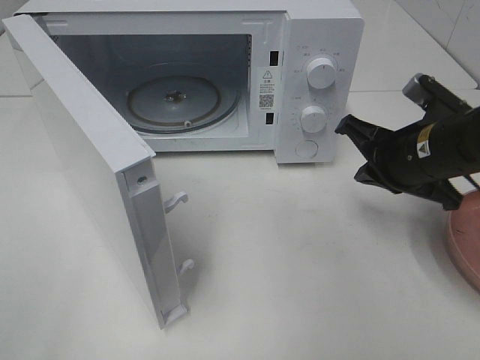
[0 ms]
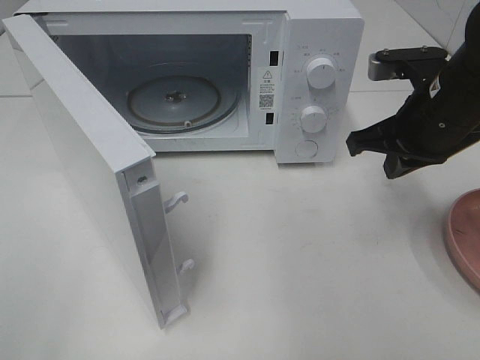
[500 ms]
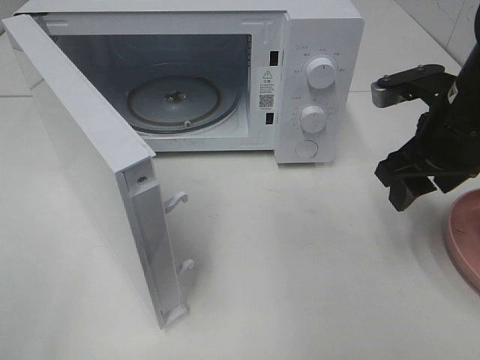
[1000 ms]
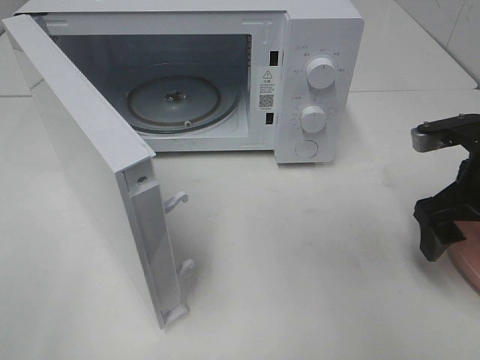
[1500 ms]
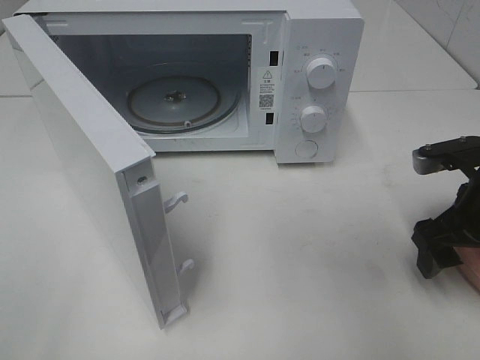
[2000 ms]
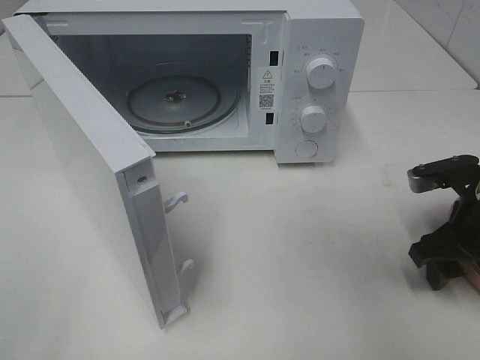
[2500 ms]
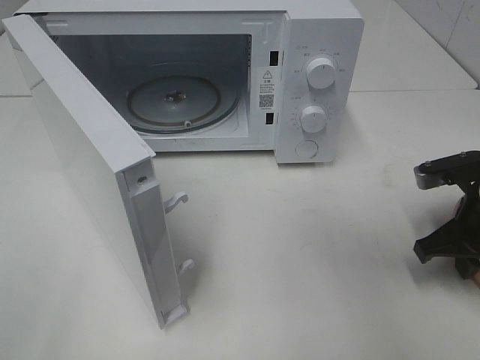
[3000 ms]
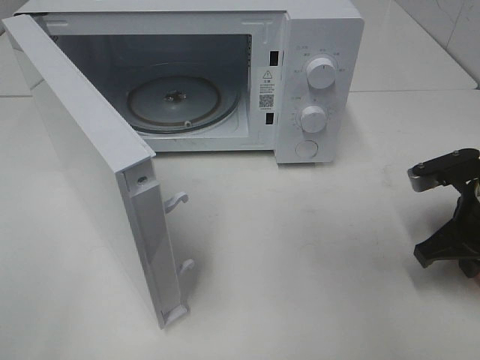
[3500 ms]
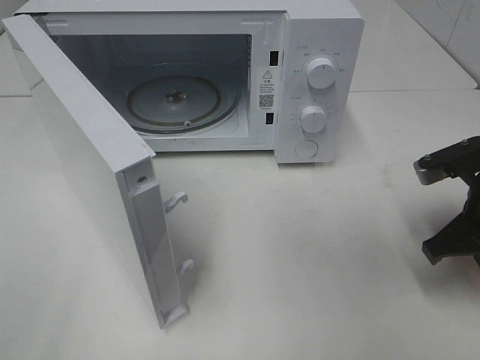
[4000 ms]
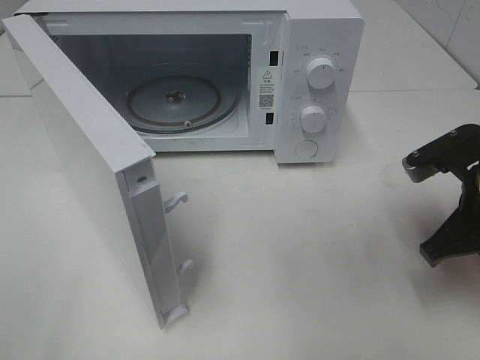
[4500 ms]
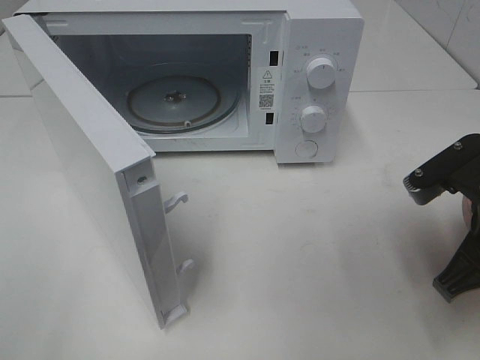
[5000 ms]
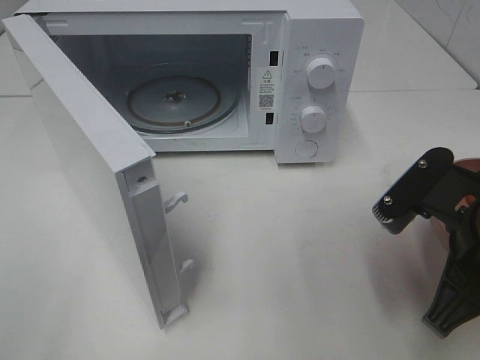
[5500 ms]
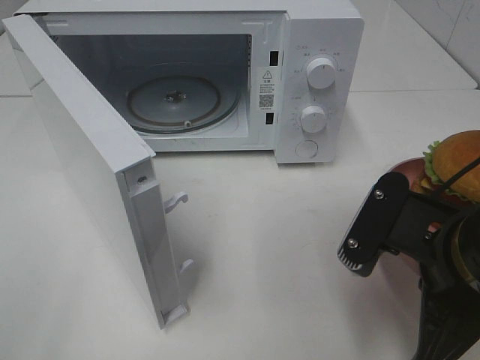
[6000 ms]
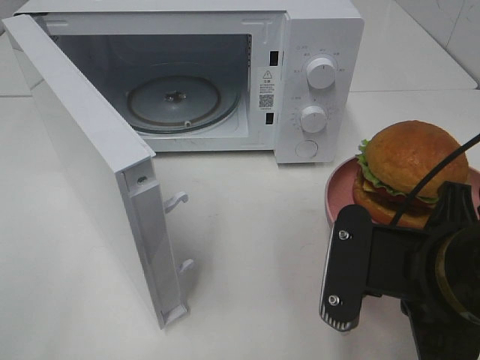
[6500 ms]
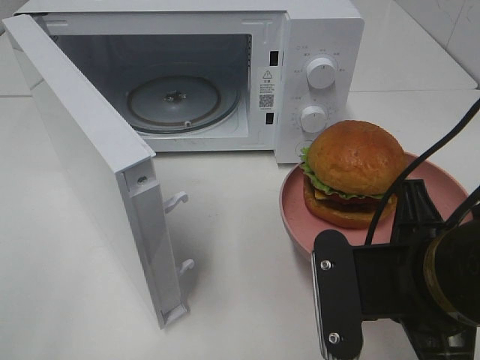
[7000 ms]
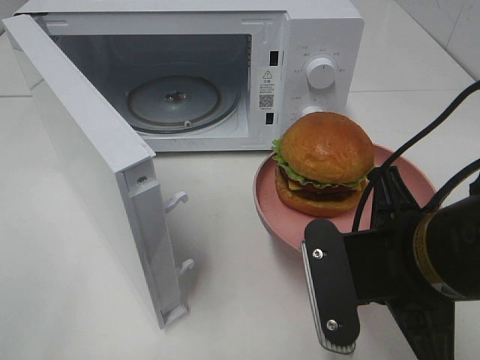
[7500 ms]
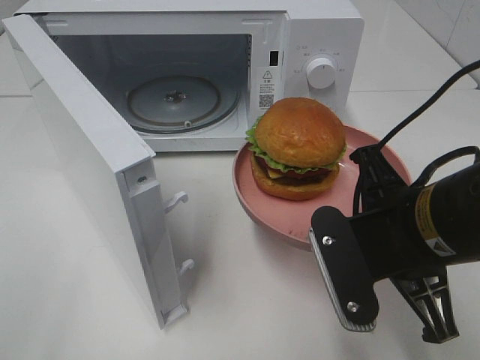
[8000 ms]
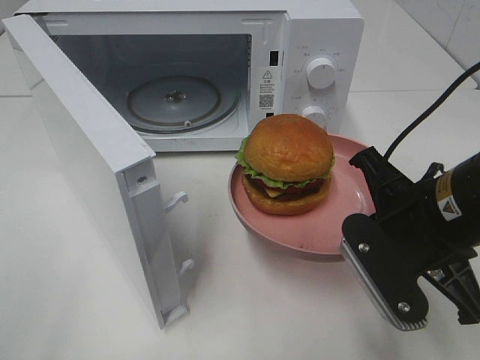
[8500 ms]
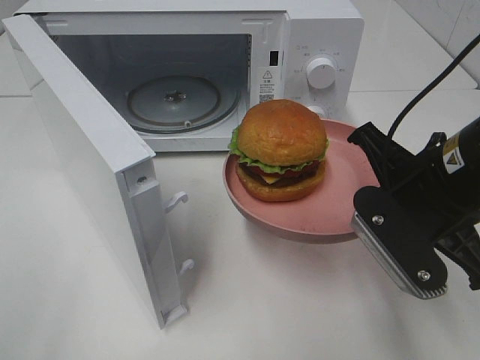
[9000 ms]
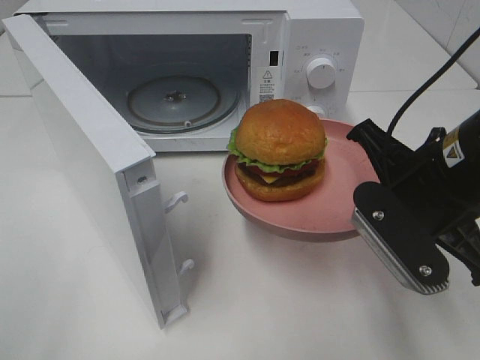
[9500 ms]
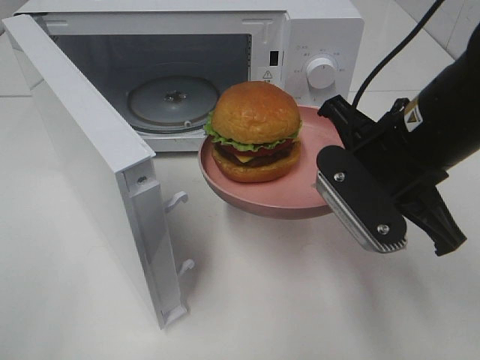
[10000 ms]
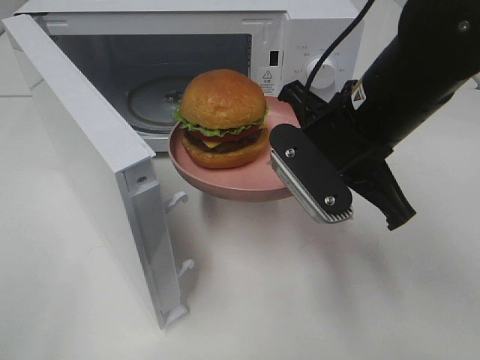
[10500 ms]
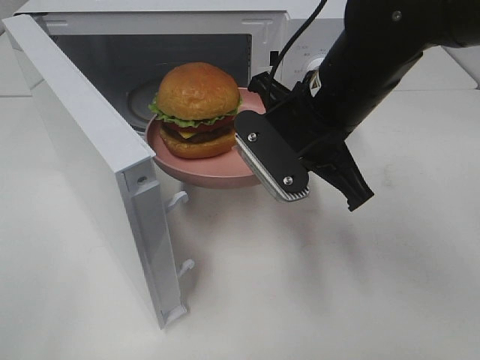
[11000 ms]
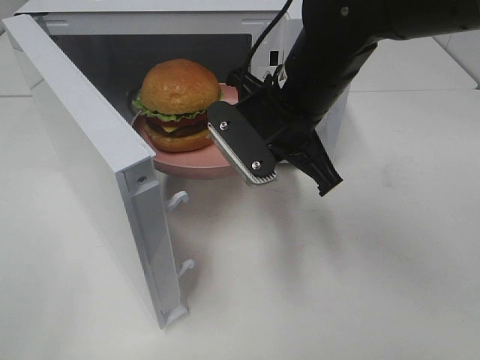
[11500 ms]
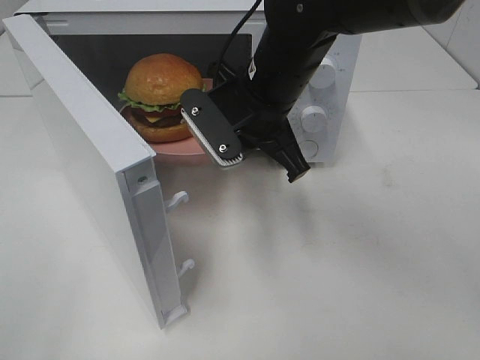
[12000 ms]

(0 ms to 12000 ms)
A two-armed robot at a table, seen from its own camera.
Task of the whole recording: Heat the burger.
Step, 0 ms - 3500 ms: Right hand: grab the plate with the hamburger.
0 ms - 2000 ms: The right gripper is displaced to the right by some 5 cm, and opens.
2000 ms - 4000 ms: The right gripper closes.
4000 ms - 6000 ms: The right gripper moves backward and to the left, some 15 cm.
8000 ms - 10000 ms: The right gripper travels forward by approximately 5 cm.
10000 ms - 12000 ms: The right gripper is displaced to the left and forward by some 15 cm.

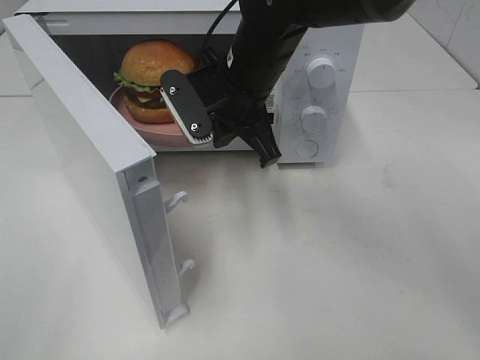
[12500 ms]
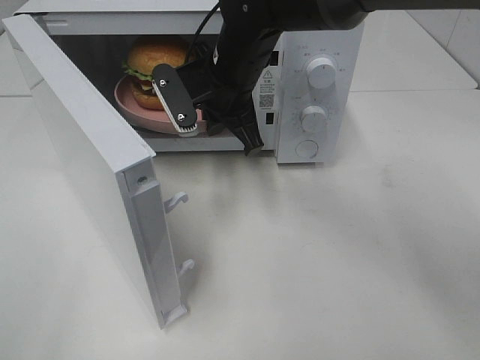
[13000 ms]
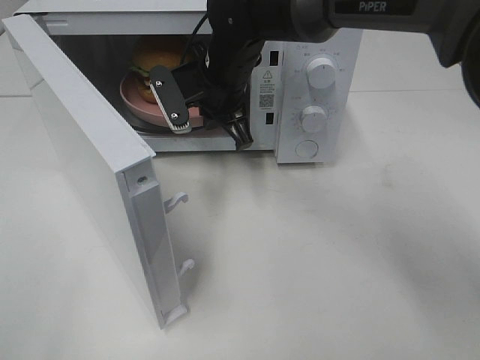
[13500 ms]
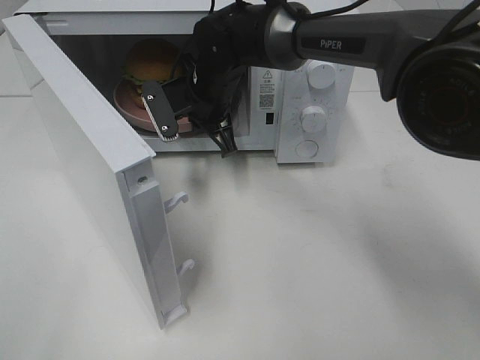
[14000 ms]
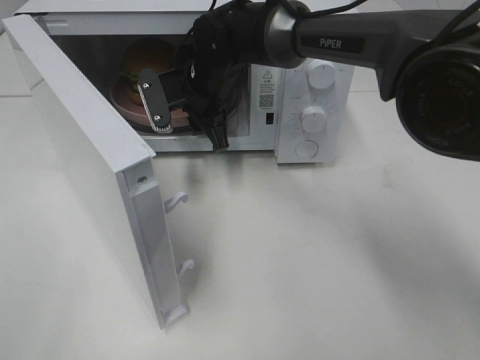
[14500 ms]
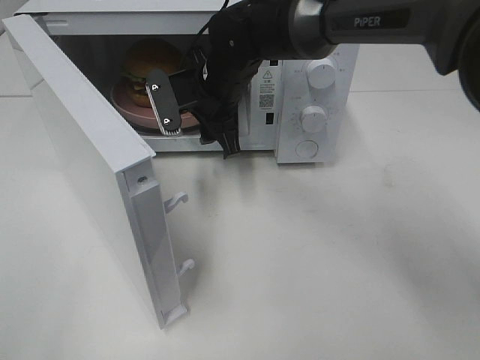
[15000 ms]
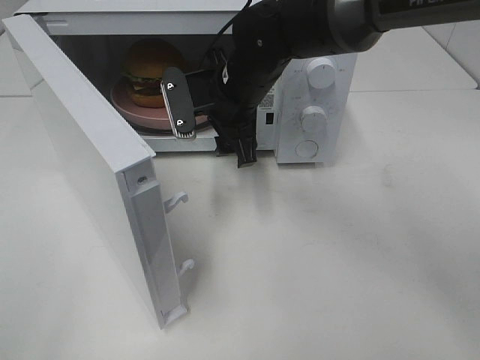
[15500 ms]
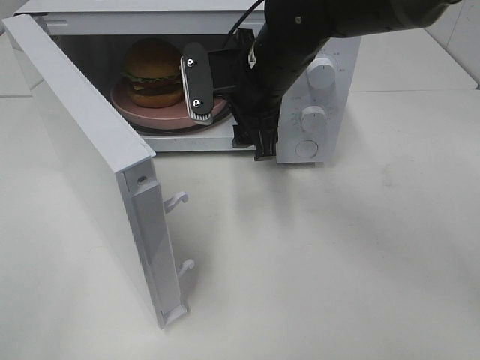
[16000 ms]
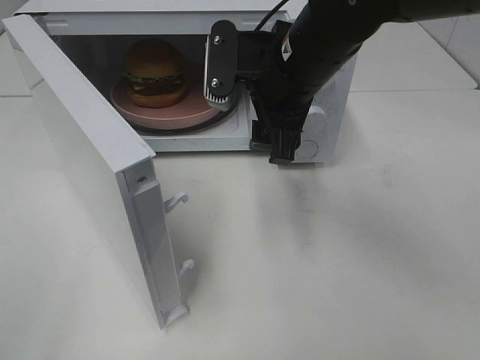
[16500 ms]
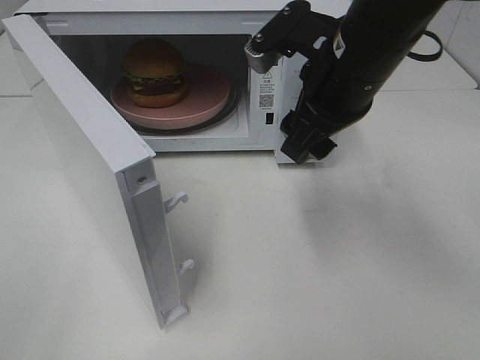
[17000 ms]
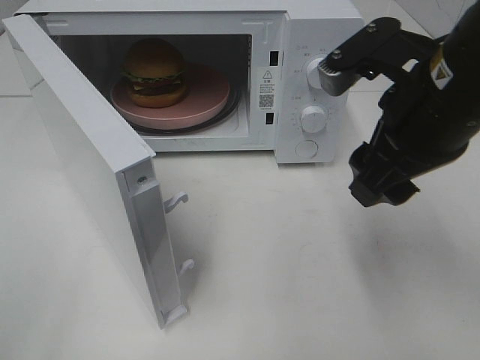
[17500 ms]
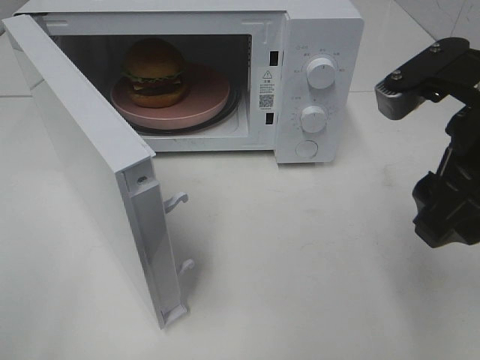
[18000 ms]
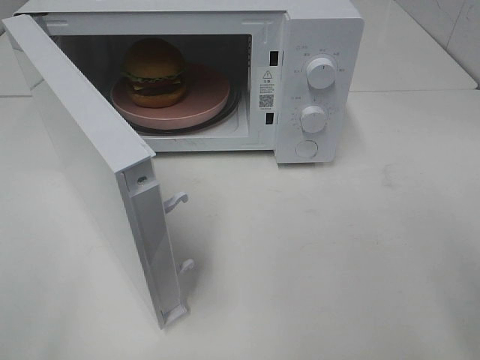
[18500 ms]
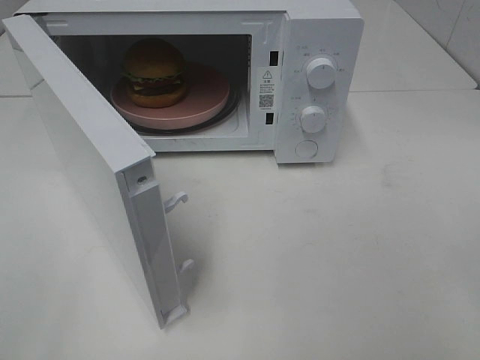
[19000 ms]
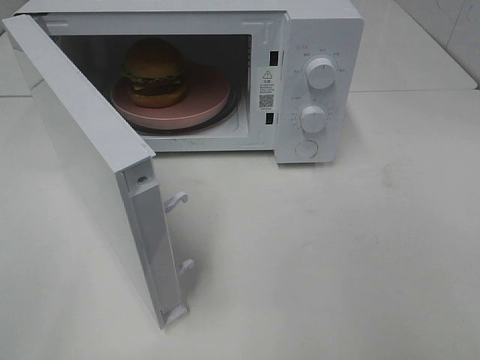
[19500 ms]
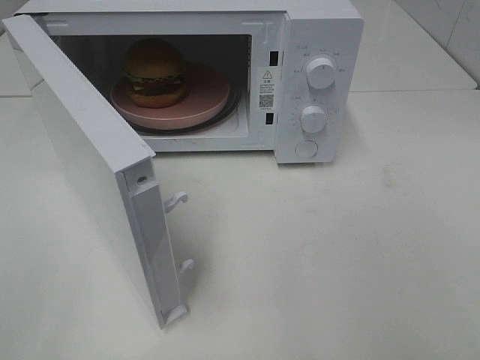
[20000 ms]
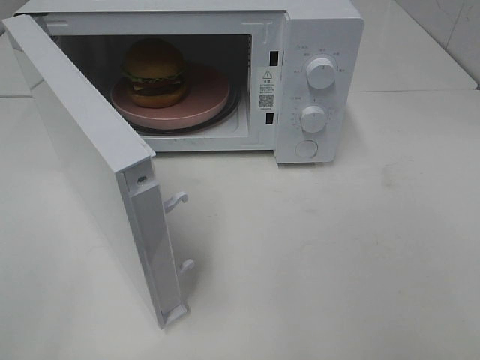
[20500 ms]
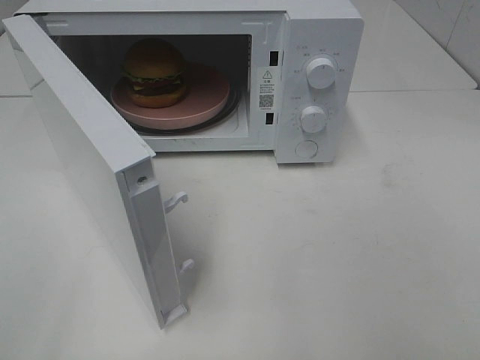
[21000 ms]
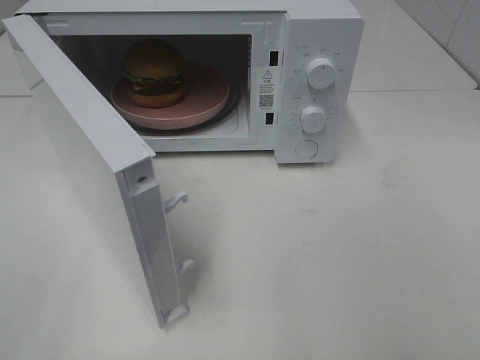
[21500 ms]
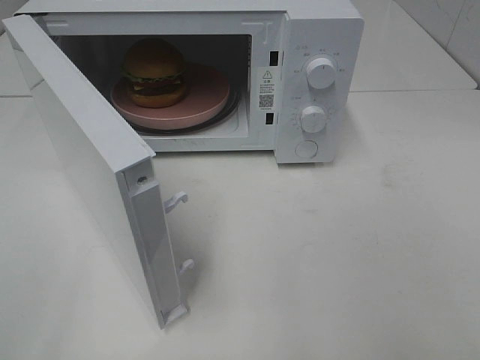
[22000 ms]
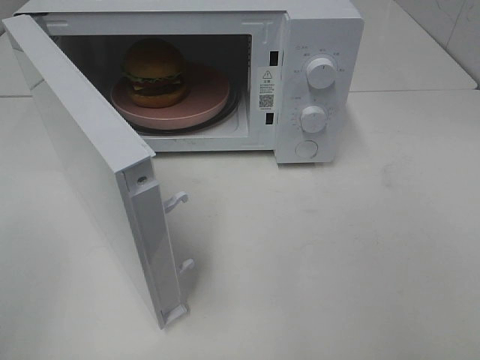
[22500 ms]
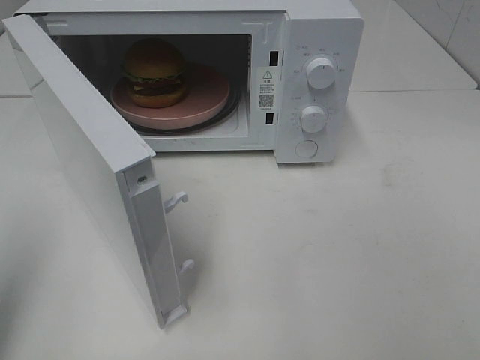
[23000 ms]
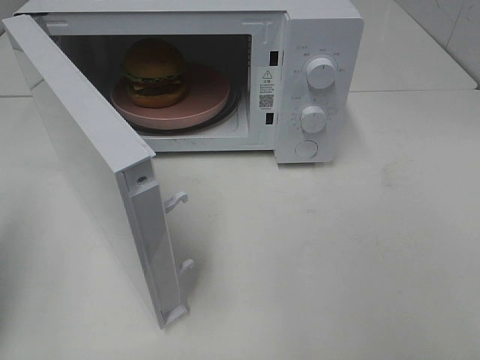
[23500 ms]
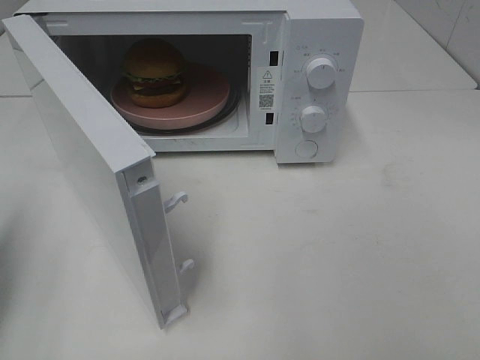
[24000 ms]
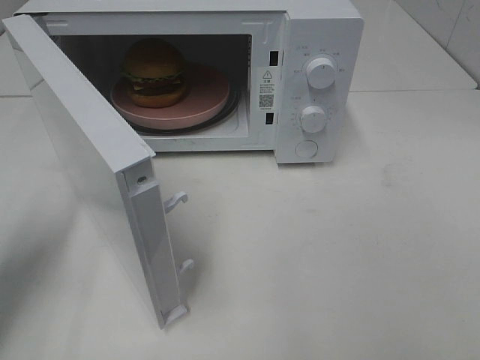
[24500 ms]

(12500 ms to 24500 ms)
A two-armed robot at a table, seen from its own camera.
Task of the whole recording: Heat the burger.
Step, 12500 ms - 15000 ms: Right hand: place the plate in the microwave.
12500 ms - 14500 ms: The right gripper travels forward and downward by approximately 10 cm, and opens its fingers.
14500 ms - 16500 ms: The right gripper is displaced backward, to the right and upward by approximately 15 cm.
16500 ms - 18500 ms: The right gripper is displaced backward and to the right by approximately 25 cm.
22500 ms - 24500 ms: The left gripper heads forward and downward, covering some 20 cm, and closes up.

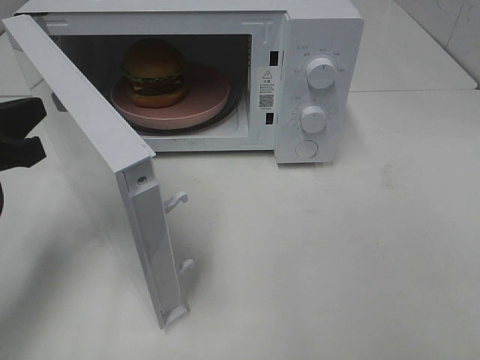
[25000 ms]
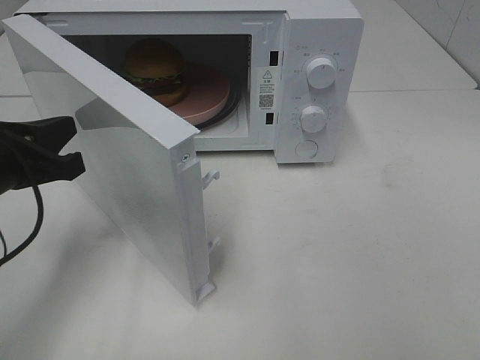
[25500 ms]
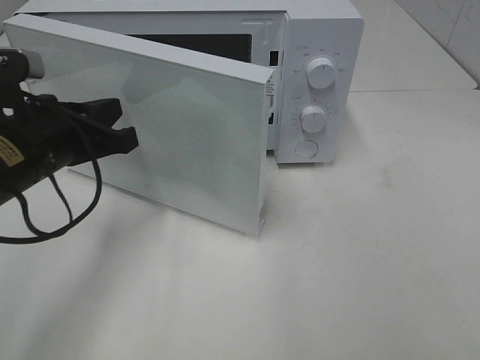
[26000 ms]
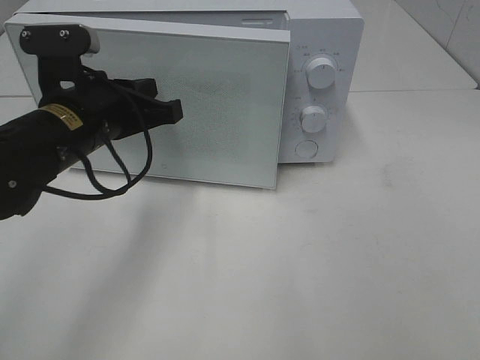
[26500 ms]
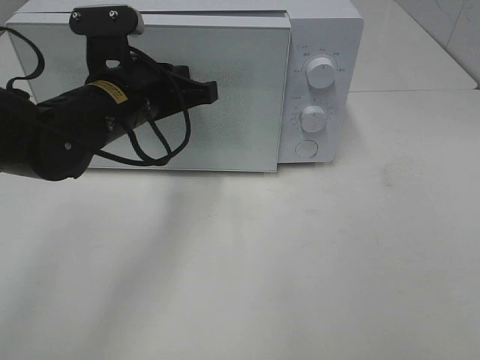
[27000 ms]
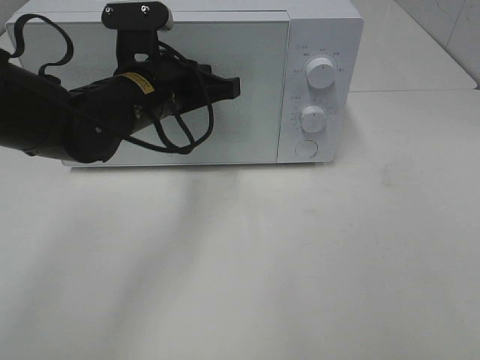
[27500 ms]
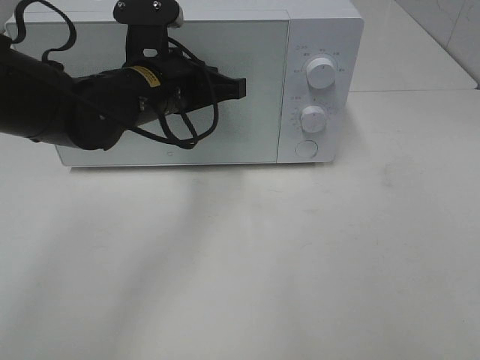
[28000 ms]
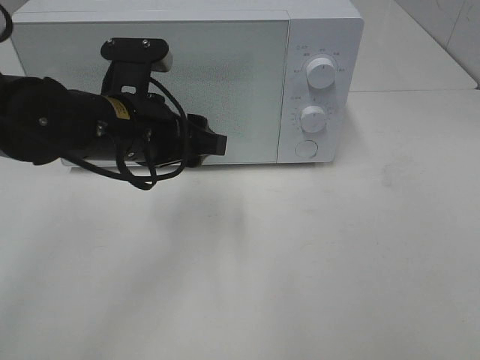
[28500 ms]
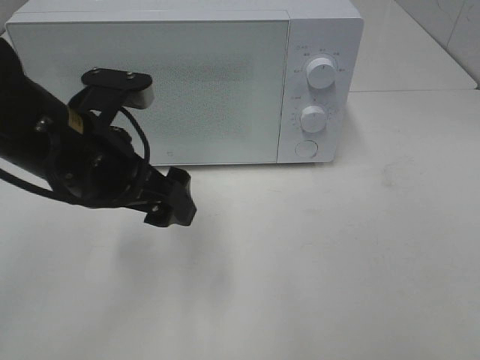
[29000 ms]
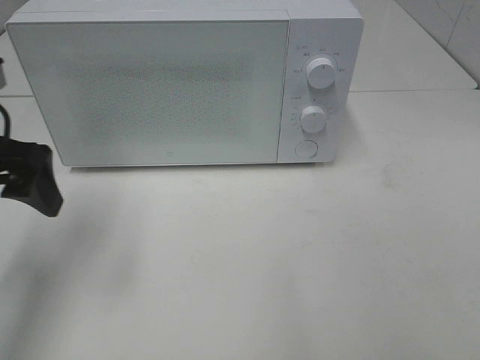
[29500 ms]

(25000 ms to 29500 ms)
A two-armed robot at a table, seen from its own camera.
Task of the whole recording: Heat the burger.
Step, 25000 ms - 28500 ms: Left hand: close the microwave door.
25000 ms - 27000 ms: The left gripper moves to the right and forward, roughly 15 cm.
27000 ms - 29500 ms: The left gripper goes some 15 cm to the left and backward, and opens.
